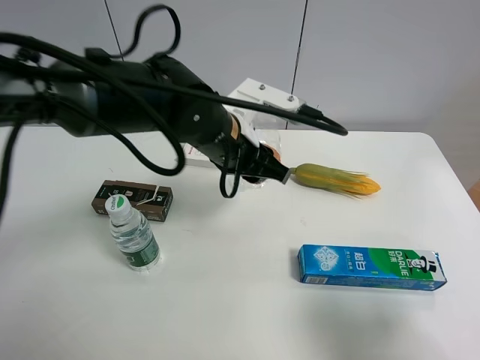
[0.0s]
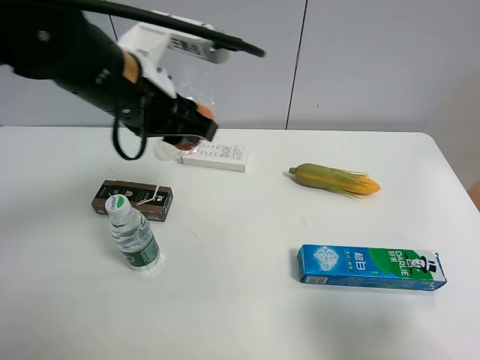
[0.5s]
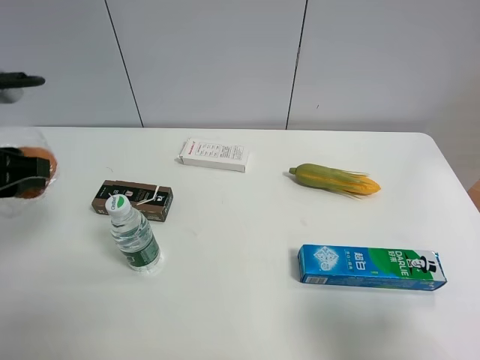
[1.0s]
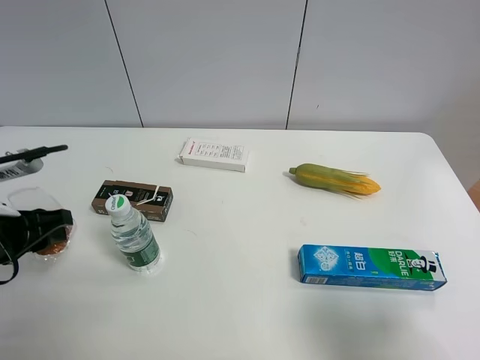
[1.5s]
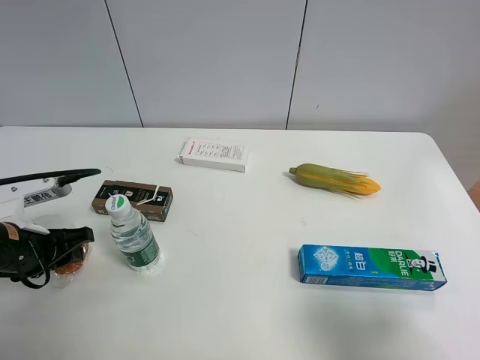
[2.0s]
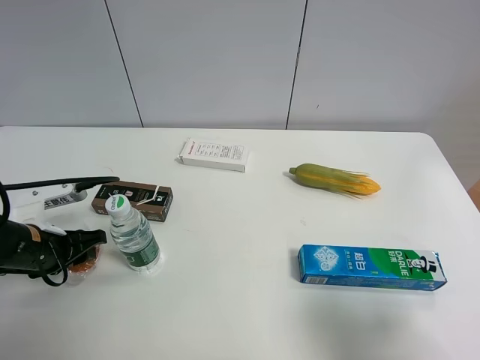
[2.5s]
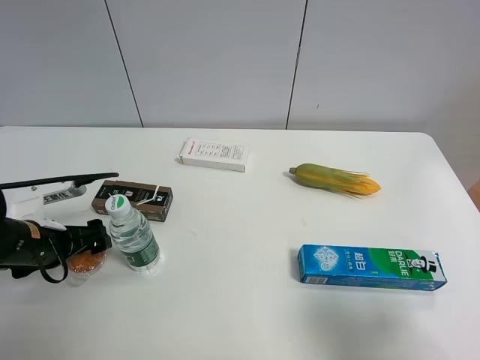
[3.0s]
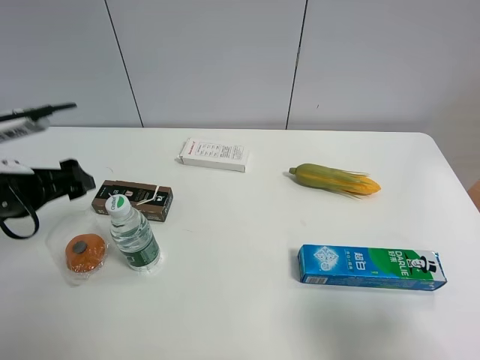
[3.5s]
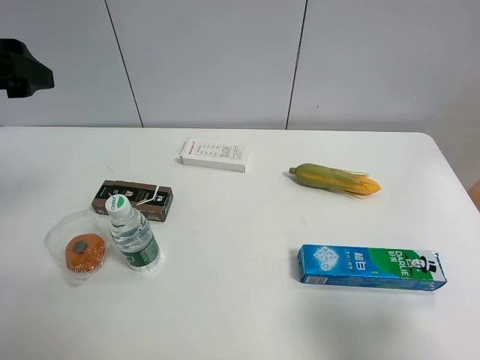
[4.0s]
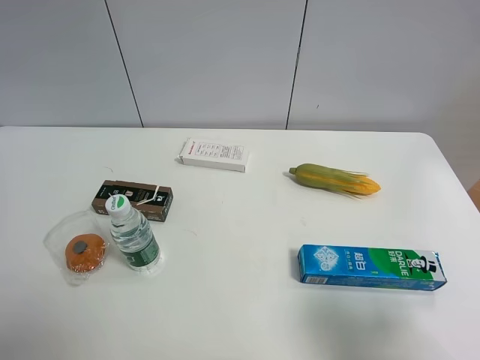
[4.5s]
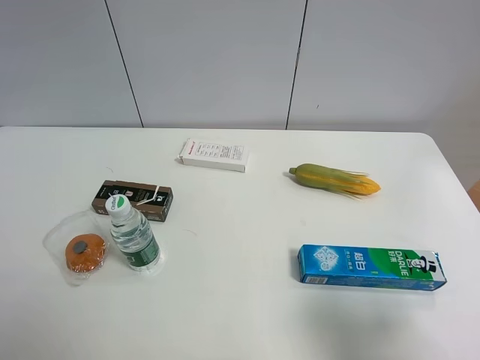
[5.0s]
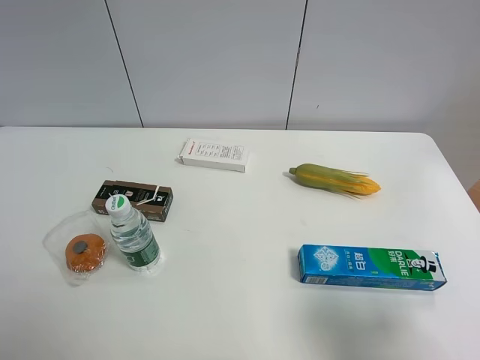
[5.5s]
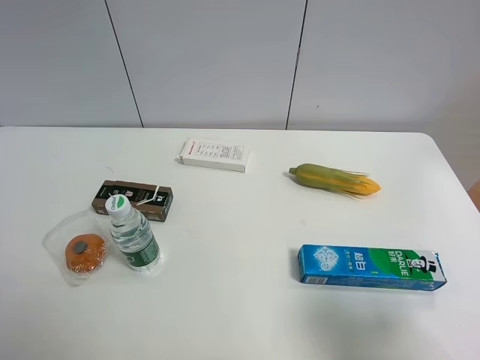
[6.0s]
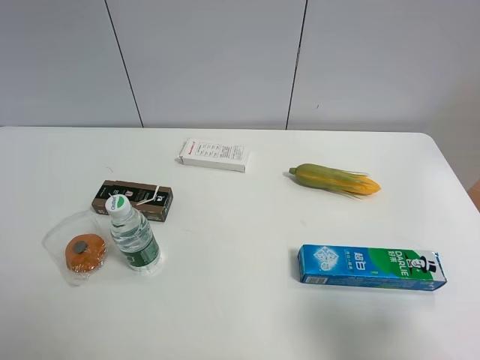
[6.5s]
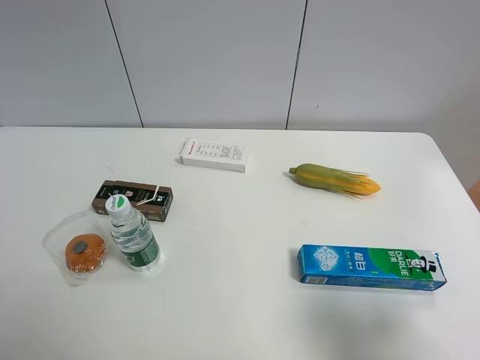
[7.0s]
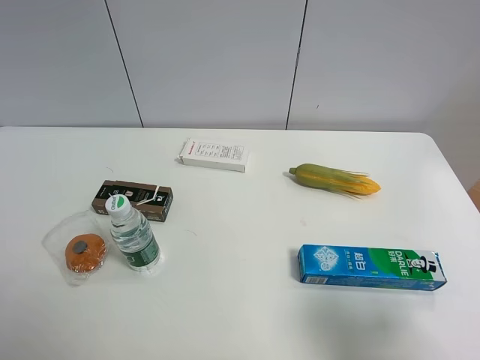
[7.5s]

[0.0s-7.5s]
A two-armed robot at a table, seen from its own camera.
Task of the whole recording: the gripper move the object.
Step, 0.0s to 2.5s: Place the egg tart on the table with the left gripper.
0.0s to 2.0s: The left gripper heads to the left, covering some 25 cm.
2.0s to 4.0s: The left gripper moves upward, about 25 cm, and opens.
4.0s to 5.5s: The left gripper moves backward, some 25 cm.

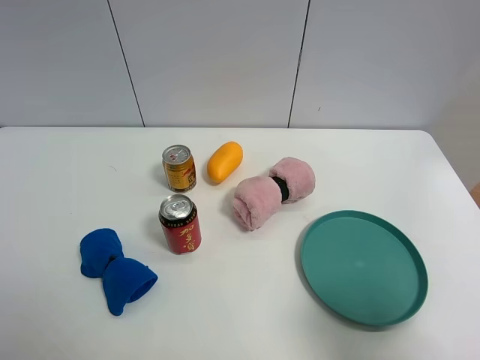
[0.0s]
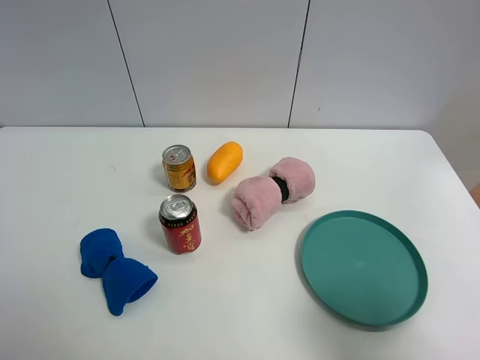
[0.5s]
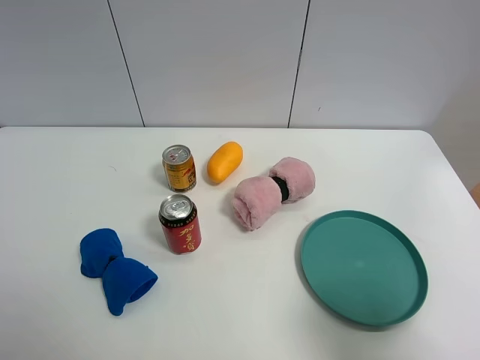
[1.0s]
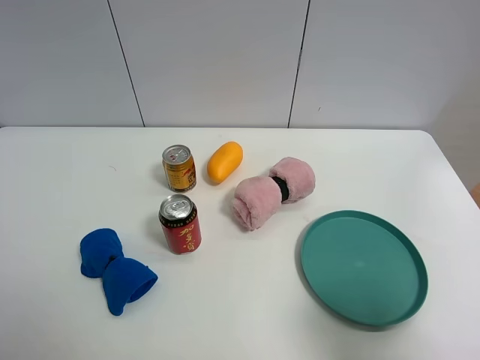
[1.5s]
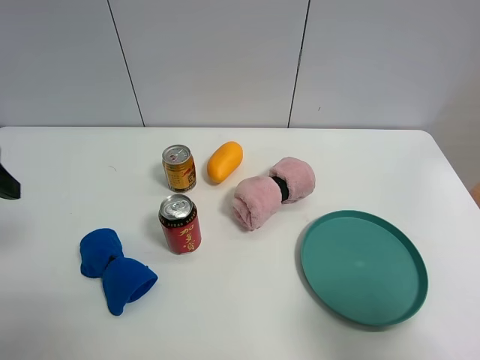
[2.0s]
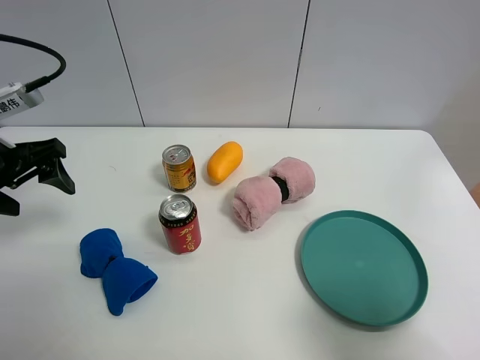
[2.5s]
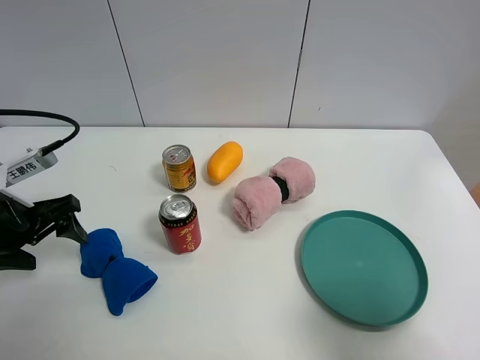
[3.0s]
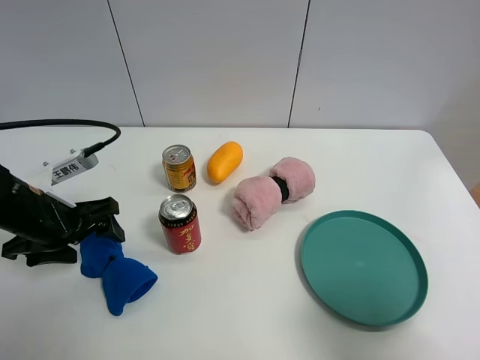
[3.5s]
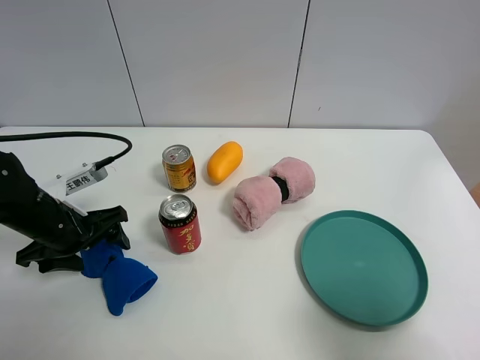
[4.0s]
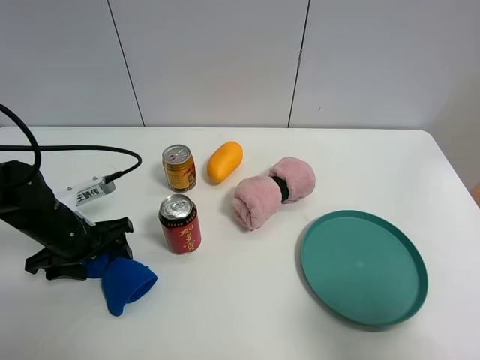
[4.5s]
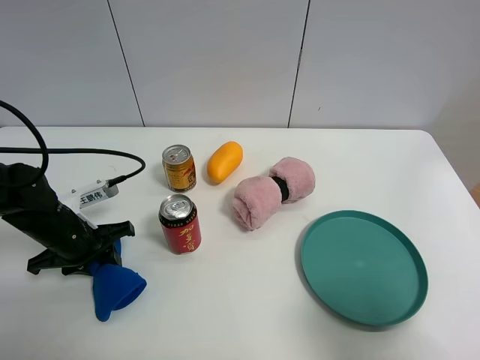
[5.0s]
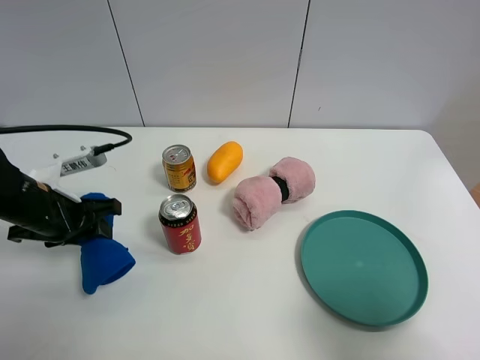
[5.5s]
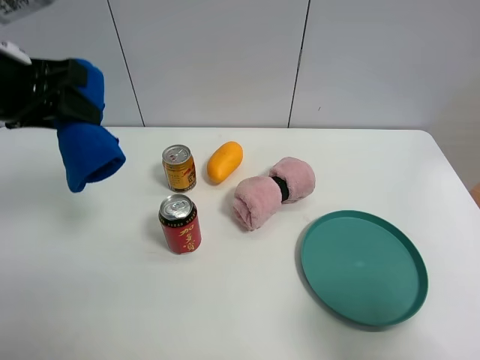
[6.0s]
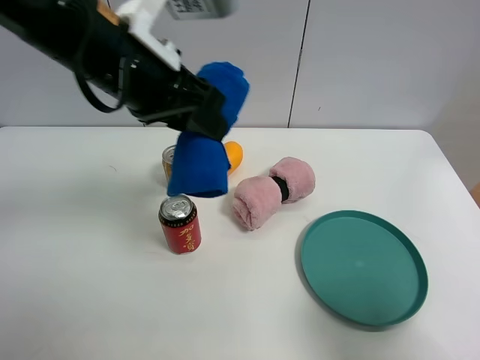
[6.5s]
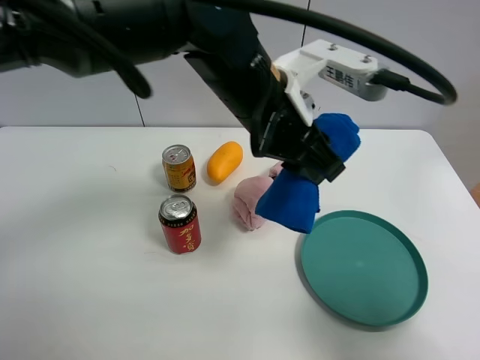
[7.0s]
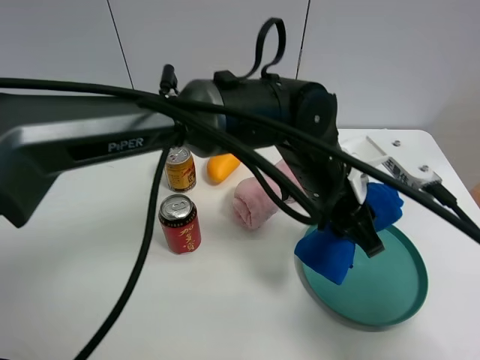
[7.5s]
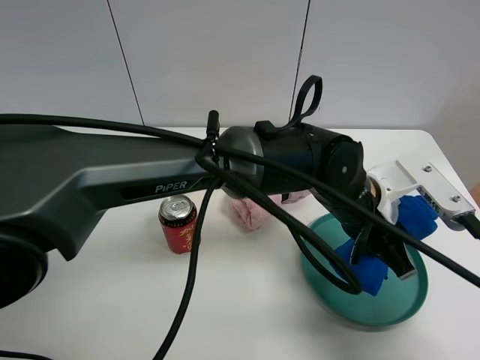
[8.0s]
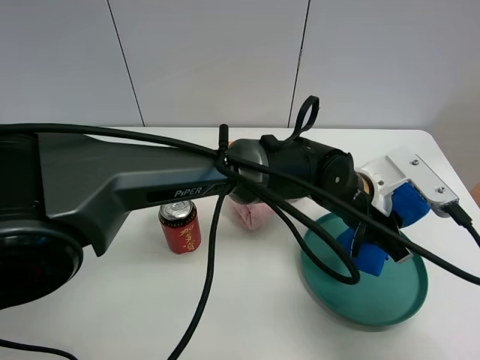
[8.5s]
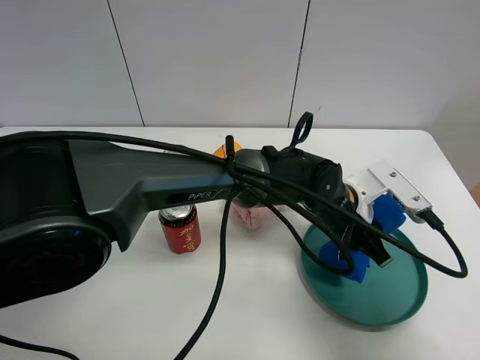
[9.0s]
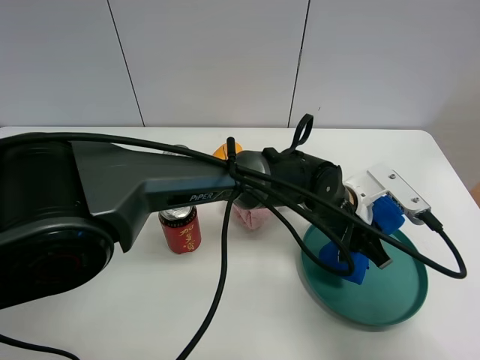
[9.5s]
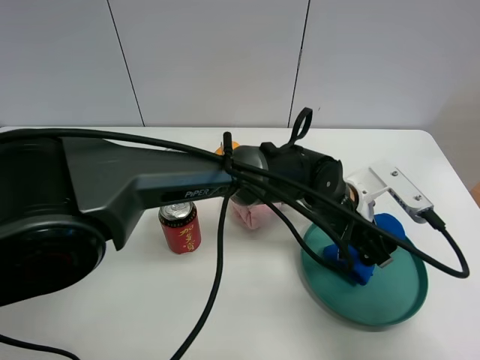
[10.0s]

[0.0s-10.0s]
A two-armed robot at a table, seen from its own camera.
Task of the whole recording: the gripper move the object.
Step, 0.0s to 5.0s: Grasp the blue towel with the left gripper.
Step, 5.5s to 10.0s: Place the blue towel into the green plate with the left gripper.
2.0s to 4.0s: The left gripper shifts about 15 cm downward.
4.0s to 6.0s: The left gripper shifts approximately 20 cm upward, and closes.
6.0s to 8.0s: The left gripper is displaced to the right and downward by roughly 40 cm.
8.0s to 10.0s: The left gripper opens its fingers.

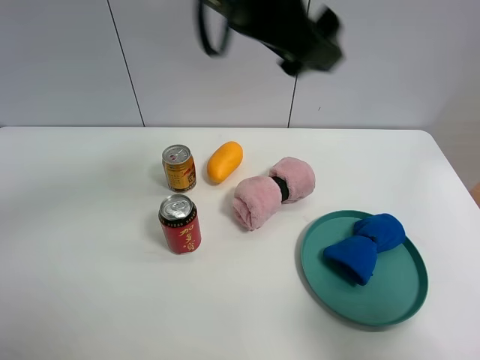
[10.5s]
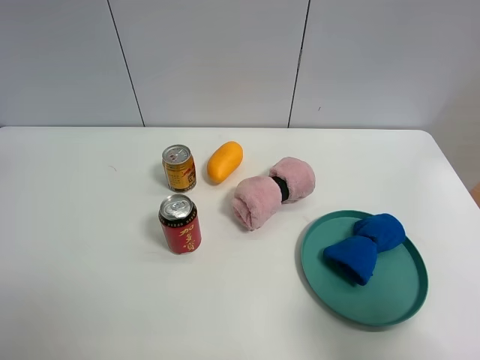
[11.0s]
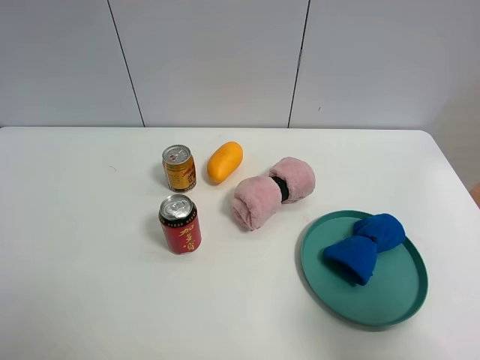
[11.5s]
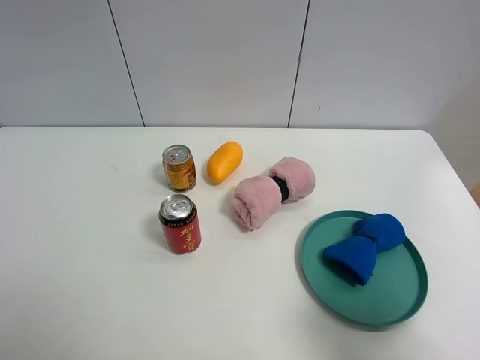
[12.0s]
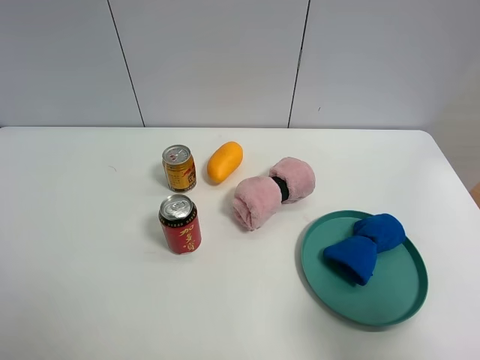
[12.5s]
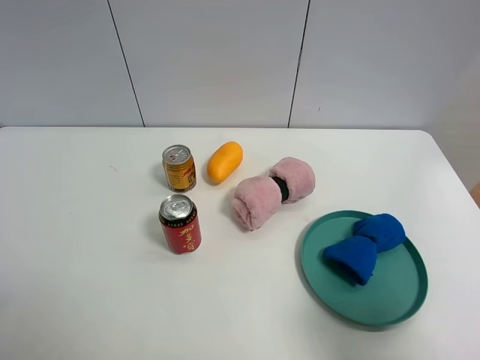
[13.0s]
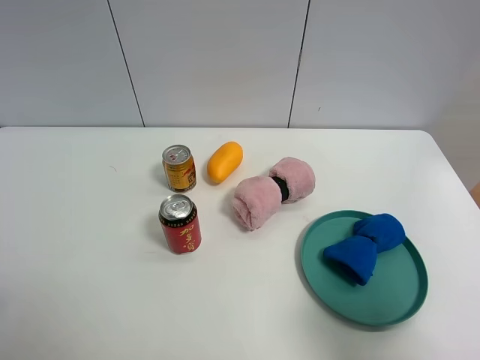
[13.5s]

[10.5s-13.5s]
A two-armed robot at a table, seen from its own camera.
Task of the whole recording: the gripper move the object.
10.5s to 12.0s: The left gripper moves to the left and backward, approximately 40 cm.

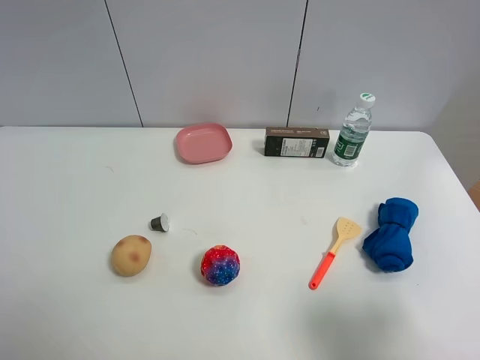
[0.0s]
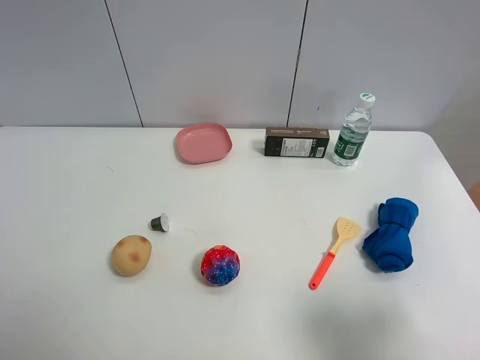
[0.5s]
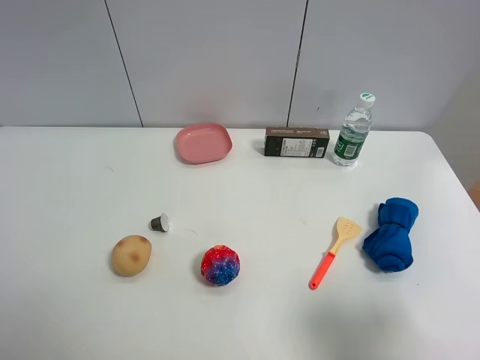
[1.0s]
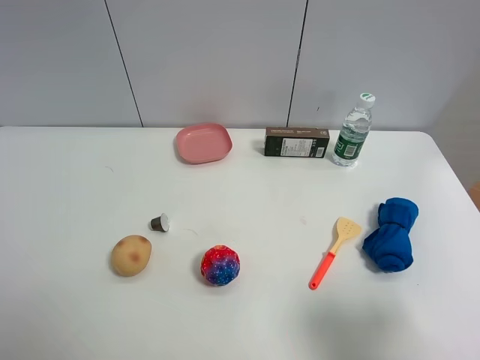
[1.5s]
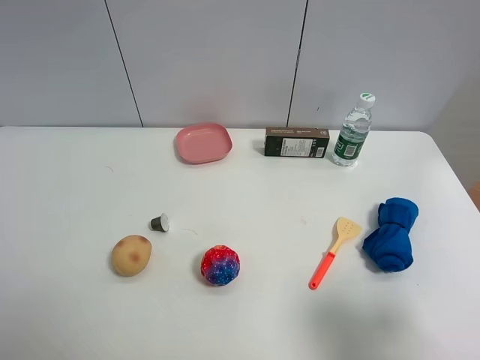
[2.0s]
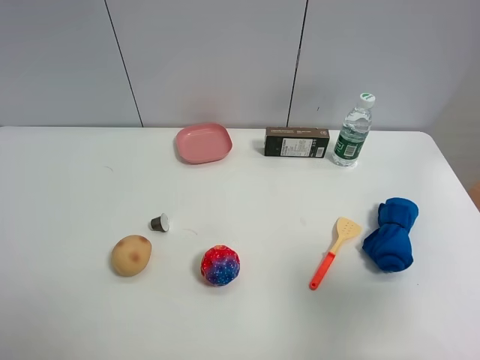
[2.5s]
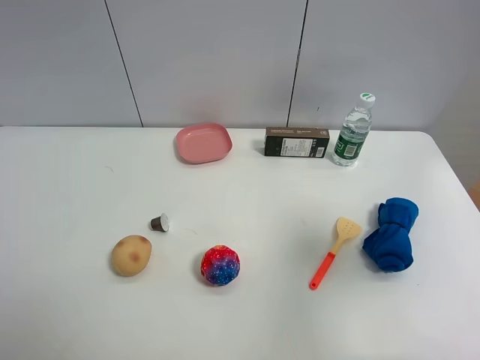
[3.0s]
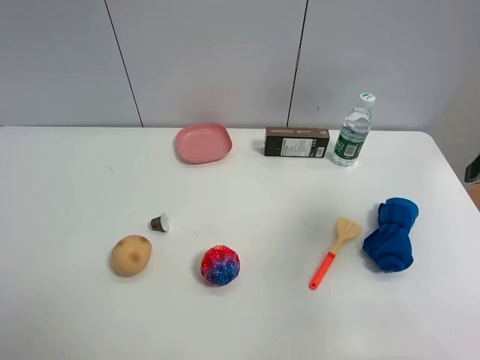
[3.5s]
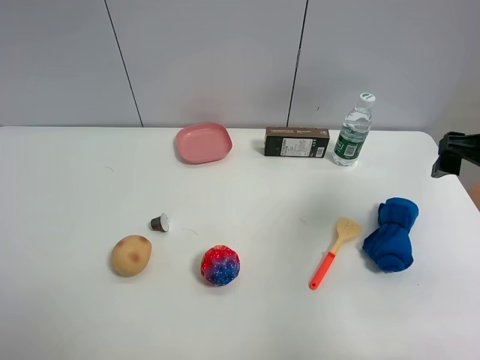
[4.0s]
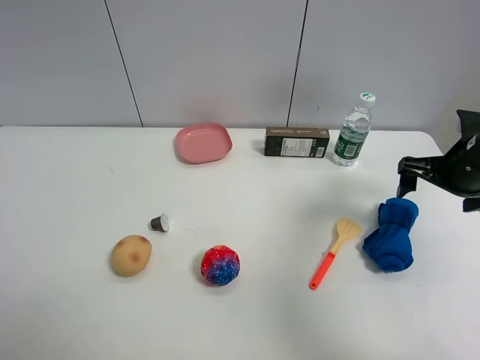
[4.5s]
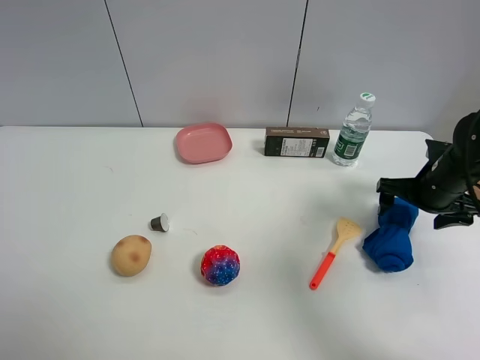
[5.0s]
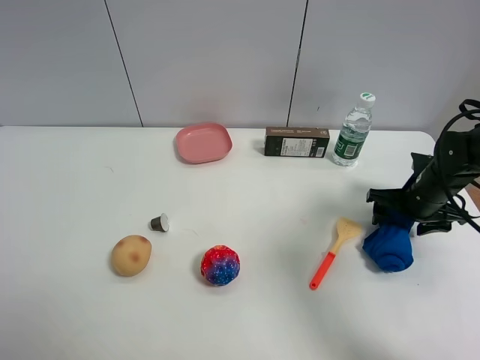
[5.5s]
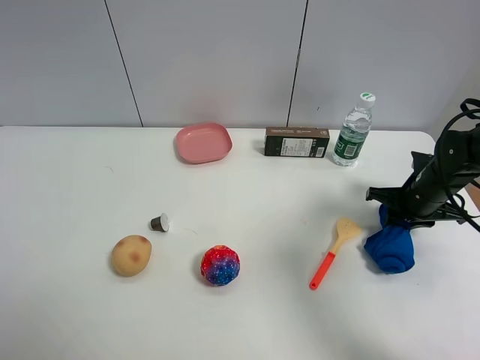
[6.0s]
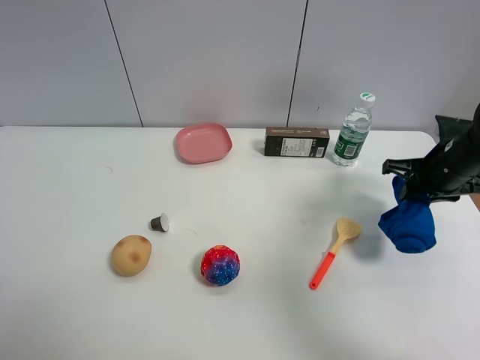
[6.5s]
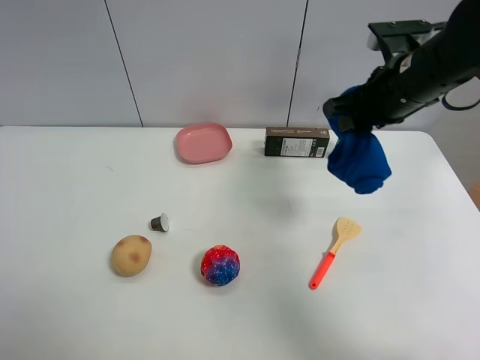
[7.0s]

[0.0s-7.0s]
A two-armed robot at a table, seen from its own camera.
Task of the whole recording: the gripper move the object.
Step, 0.0s to 5.5s: Grasp the blue towel with the right gripper.
2.0s to 3.5s: The right gripper moves forward, approximately 15 cm.
3.5s to 5.0s: The right gripper moves downward and forward, roughly 20 cm.
5.0s to 7.0s: The right gripper goes roughly 20 cm upward and to the left, and closes.
